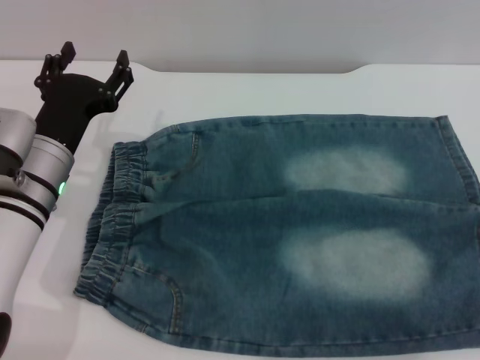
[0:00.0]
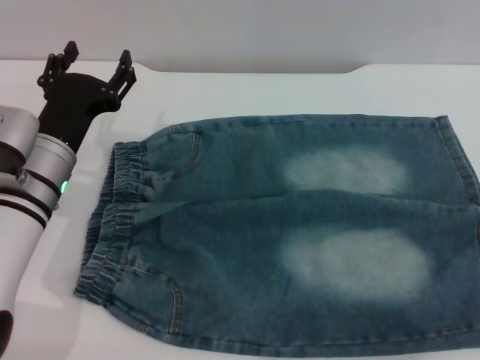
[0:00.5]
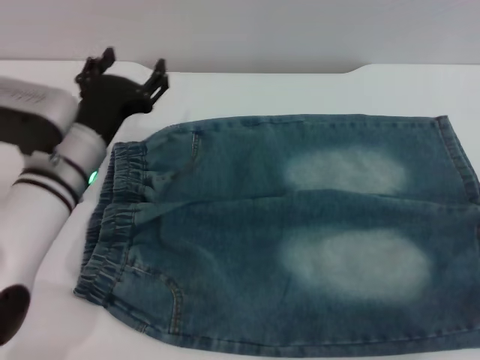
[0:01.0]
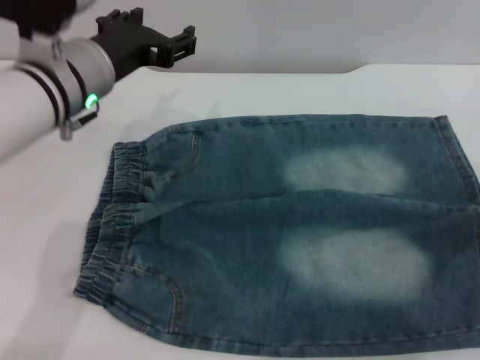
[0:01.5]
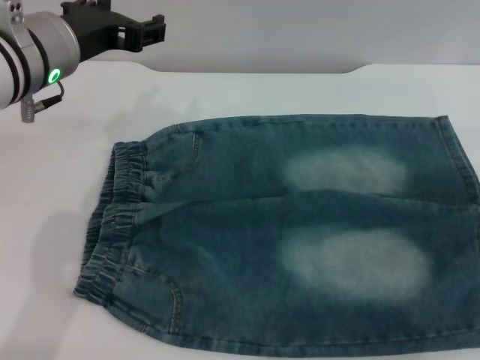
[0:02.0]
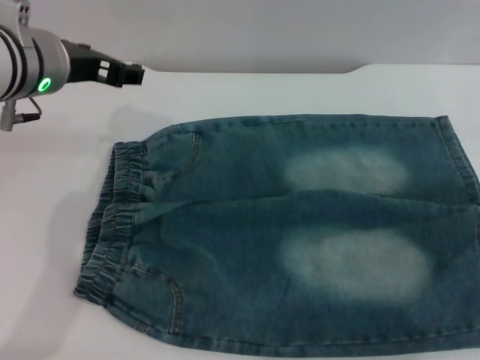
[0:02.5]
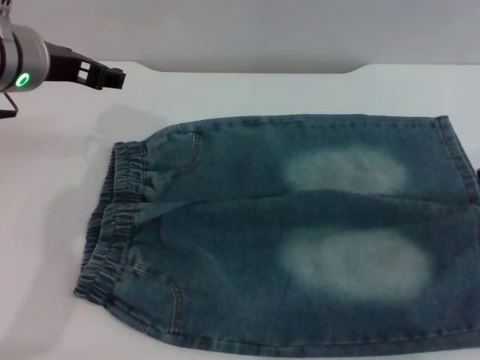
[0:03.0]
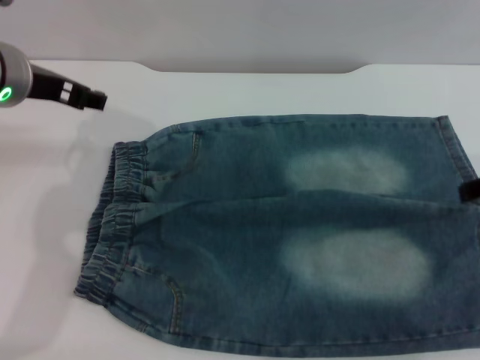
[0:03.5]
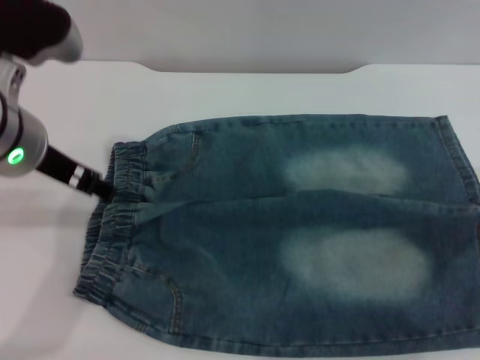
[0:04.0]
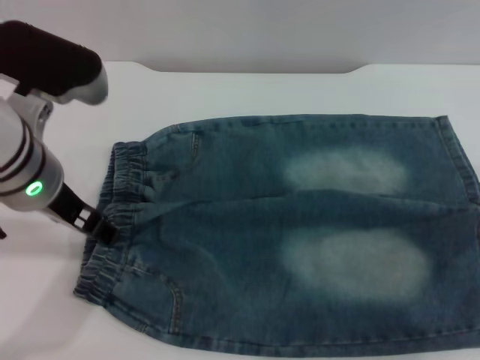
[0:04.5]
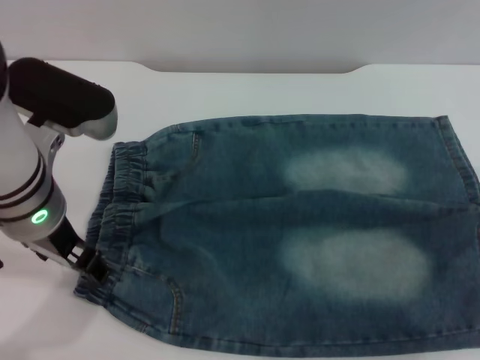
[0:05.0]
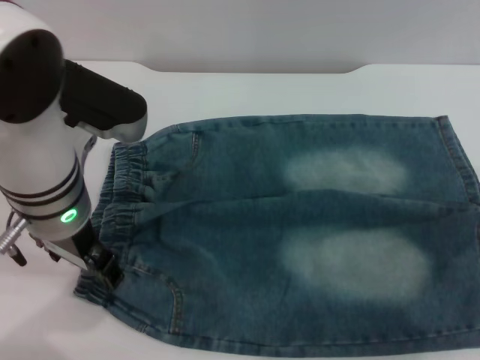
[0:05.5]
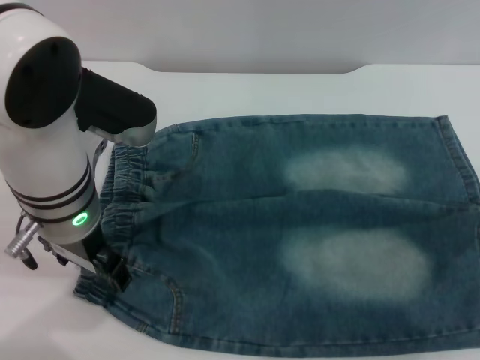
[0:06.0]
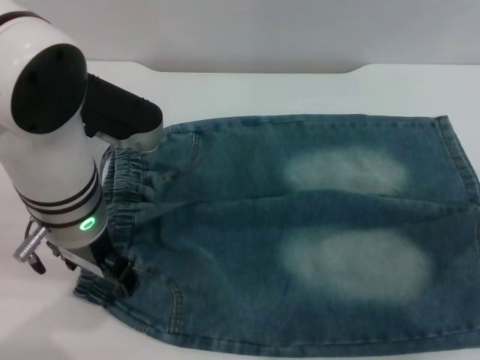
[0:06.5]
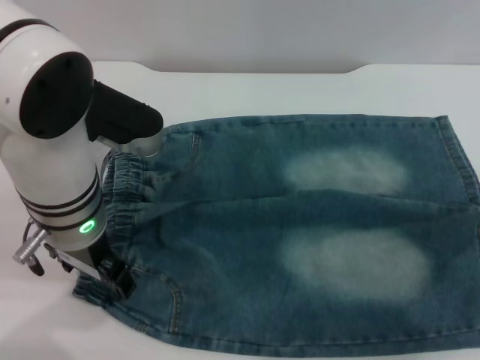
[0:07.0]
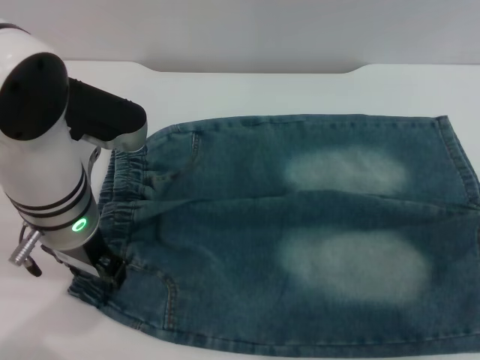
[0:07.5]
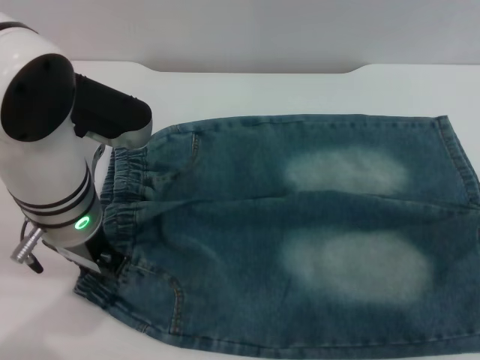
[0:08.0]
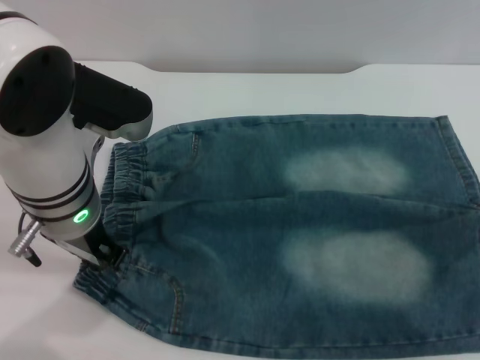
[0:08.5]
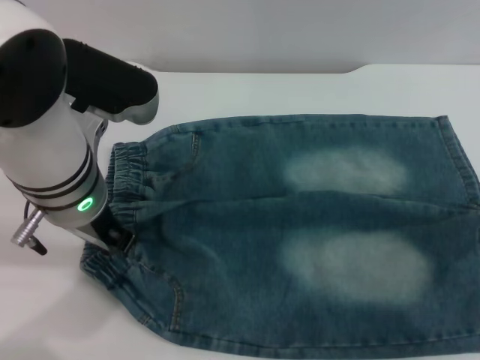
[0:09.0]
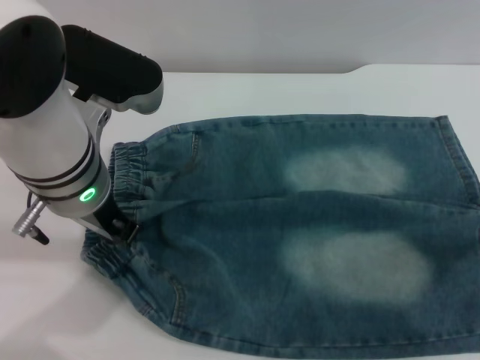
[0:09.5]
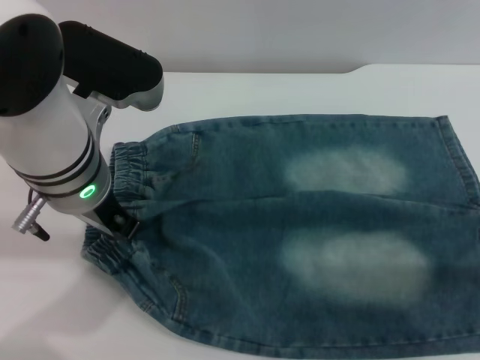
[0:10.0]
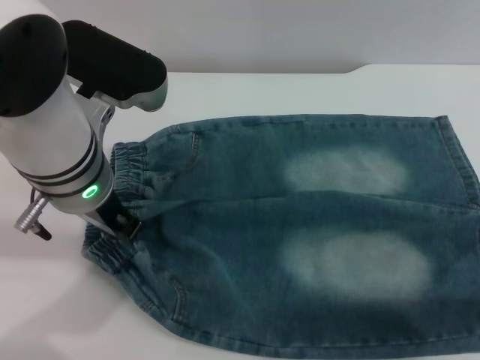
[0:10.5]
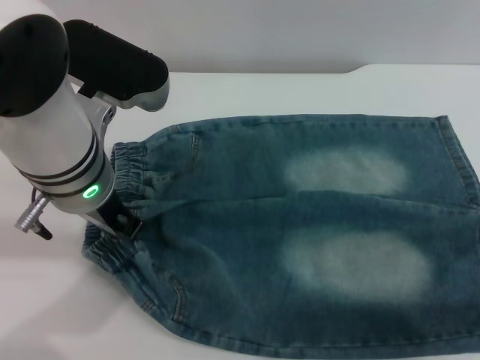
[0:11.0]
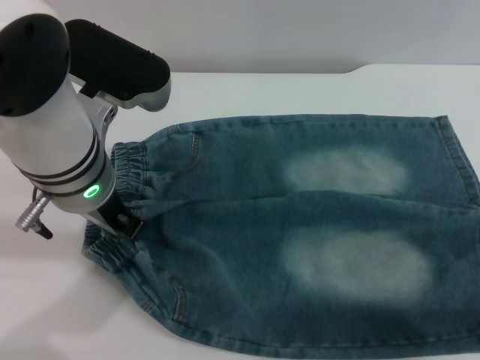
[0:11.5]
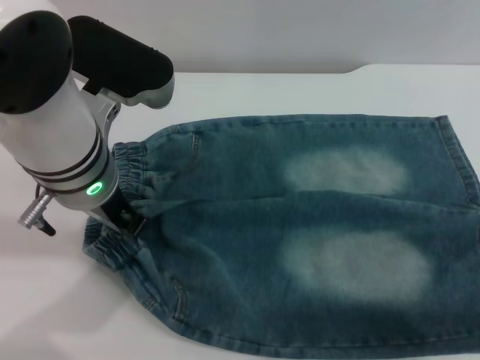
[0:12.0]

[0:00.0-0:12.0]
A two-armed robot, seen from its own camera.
0:00.0 to 0:02.0: The left gripper is displaced upward by approximately 15 cm.
0:04.0 to 0:06.0: The left gripper shifts approximately 5 cm to the right.
0:06.0 to 0:08.0: The left gripper closes up.
0:08.0 to 0:10.0: The grippers move only a little.

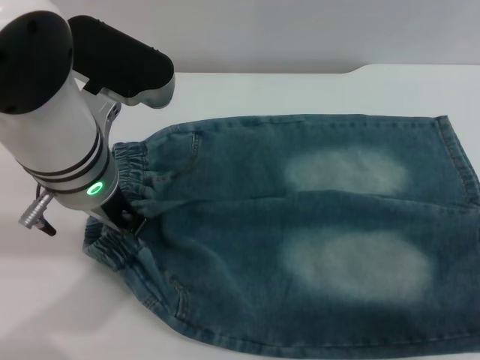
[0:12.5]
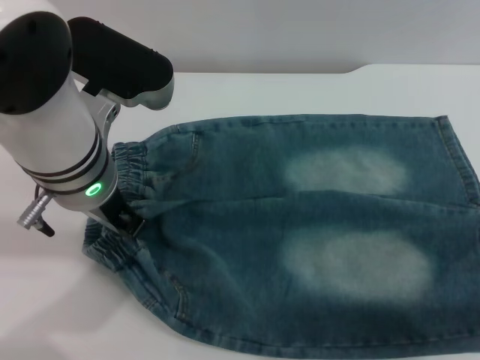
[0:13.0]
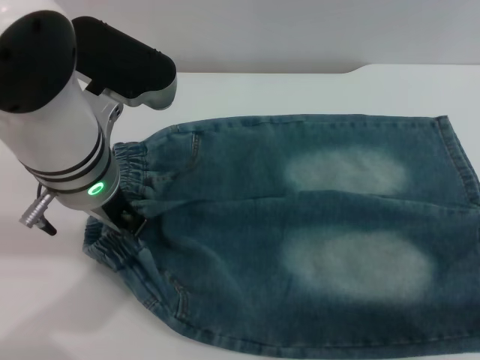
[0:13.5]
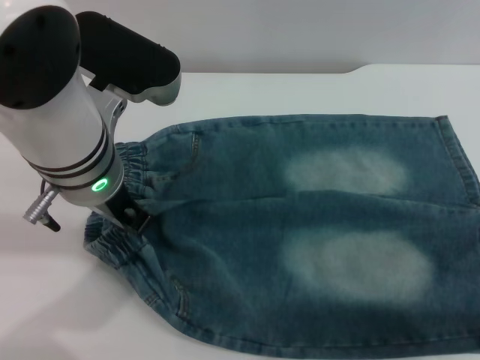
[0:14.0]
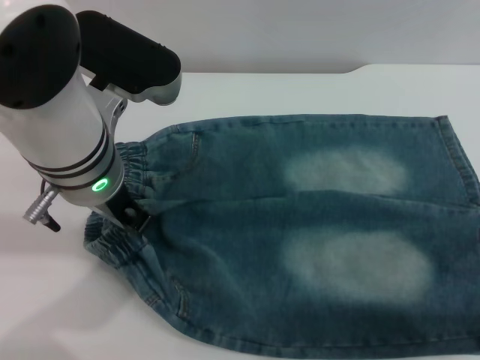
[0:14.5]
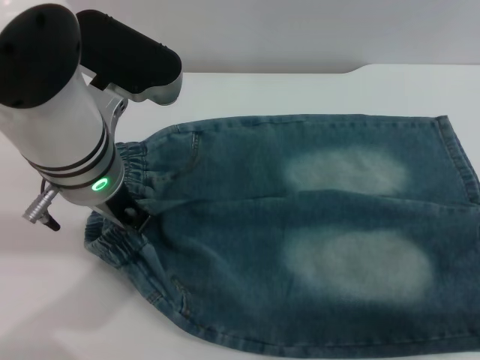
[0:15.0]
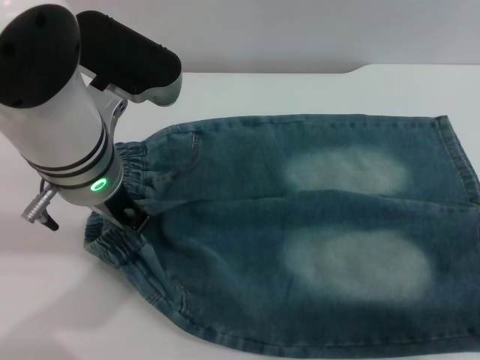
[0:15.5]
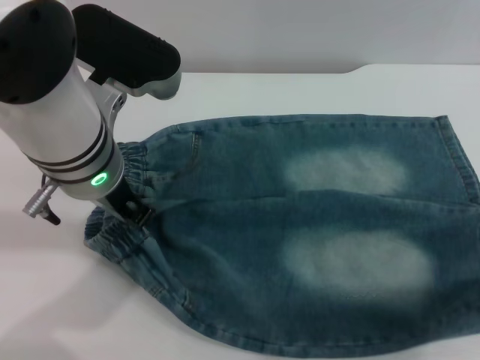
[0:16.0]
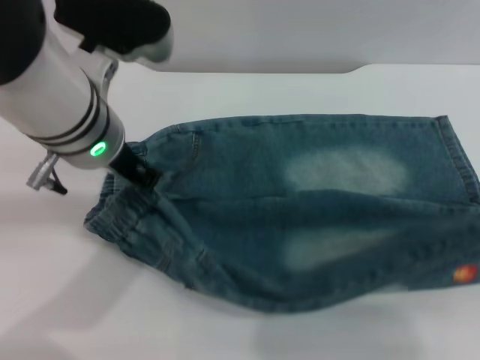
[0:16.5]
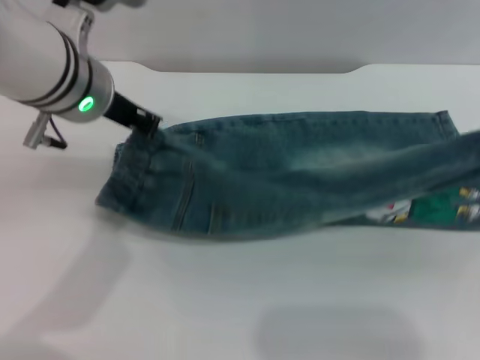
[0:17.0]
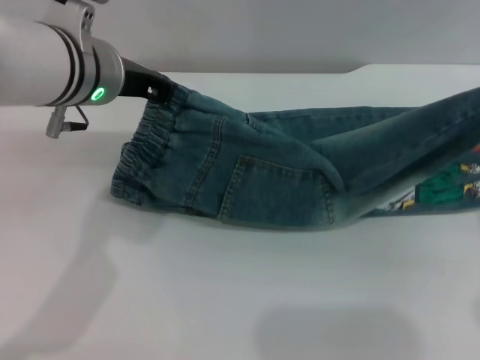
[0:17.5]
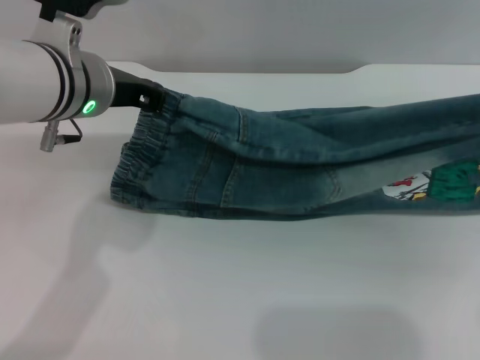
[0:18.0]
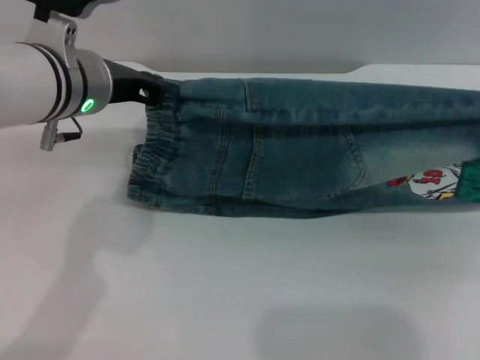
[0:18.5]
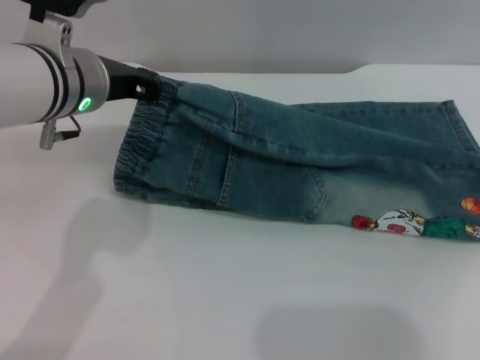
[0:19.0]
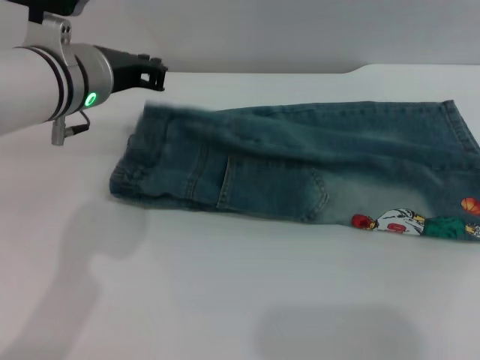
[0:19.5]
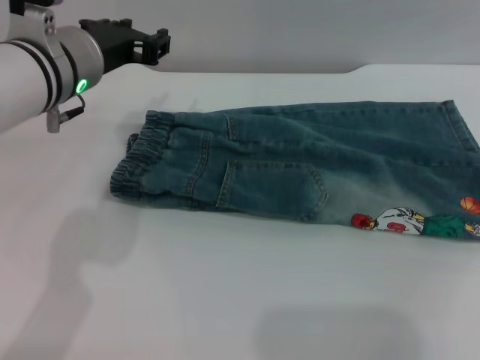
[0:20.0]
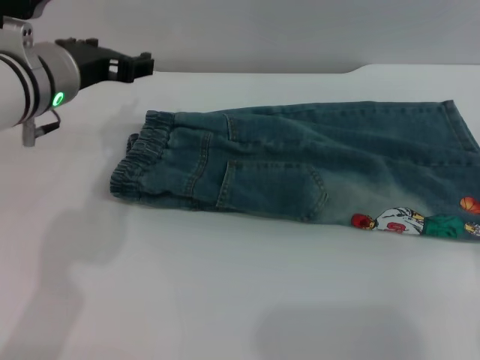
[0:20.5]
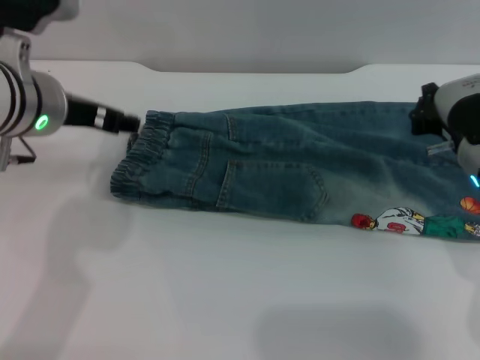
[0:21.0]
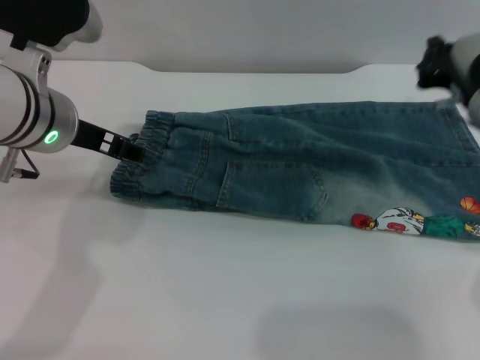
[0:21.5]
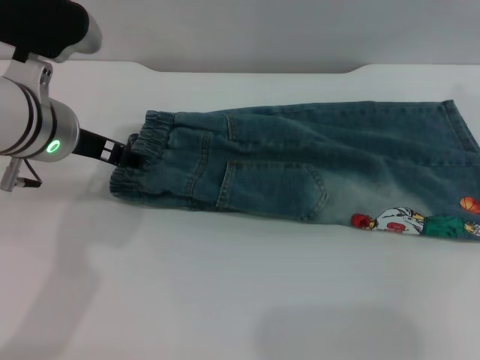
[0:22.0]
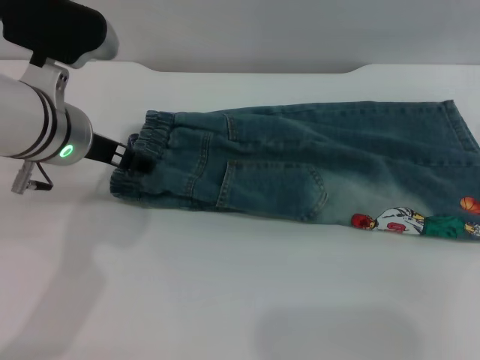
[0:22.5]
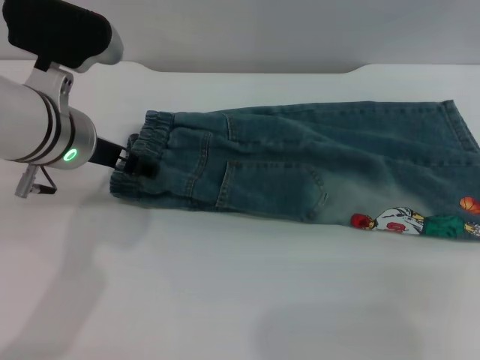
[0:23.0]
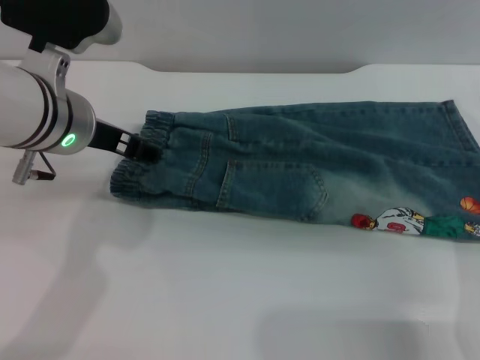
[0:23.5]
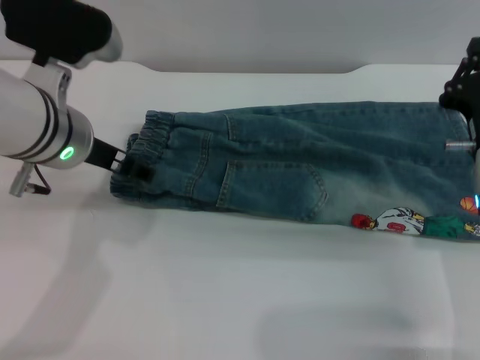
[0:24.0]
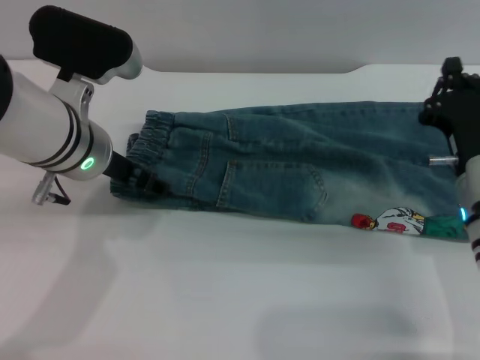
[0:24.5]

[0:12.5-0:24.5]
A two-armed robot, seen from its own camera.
Step, 0:12.5 to 0:19.5: Fold the bottom of the pants upward with both grippers.
0:14.5 to 0:16.5: The right gripper is displaced upward by some 5 cm, and closes up.
0:18.5 to 0:20.5: The right gripper changes place by approximately 5 cm, and opens. Meanwhile the left gripper opens.
0:22.5 to 0:24.5: The right gripper heads downward, to the left and backward, covering about 15 cm.

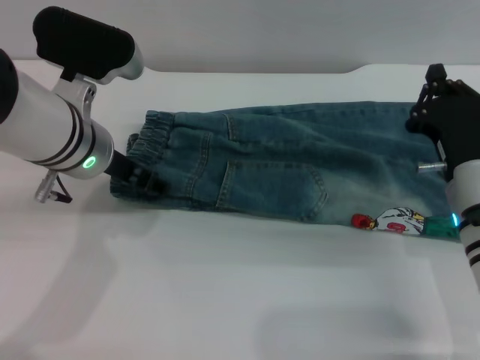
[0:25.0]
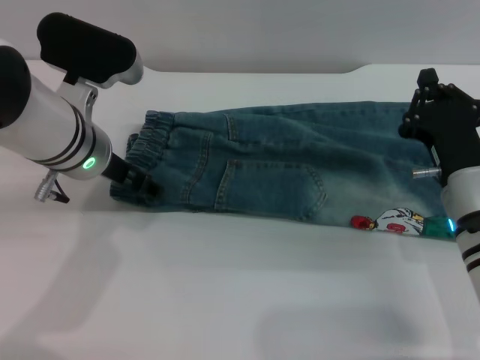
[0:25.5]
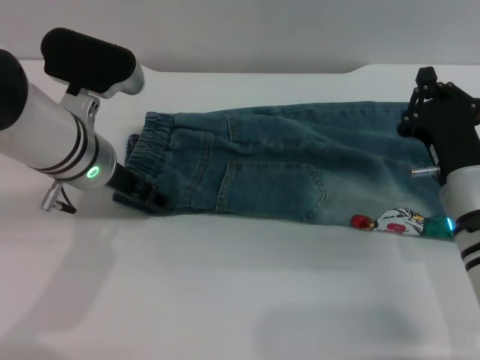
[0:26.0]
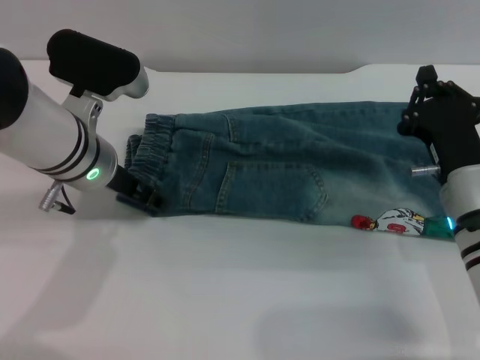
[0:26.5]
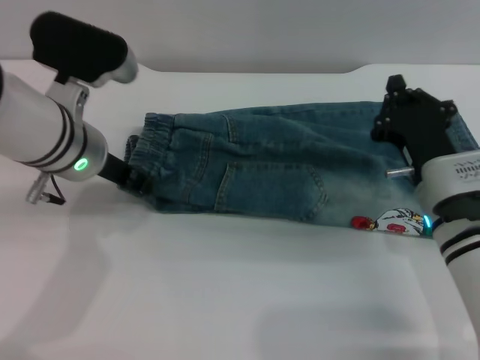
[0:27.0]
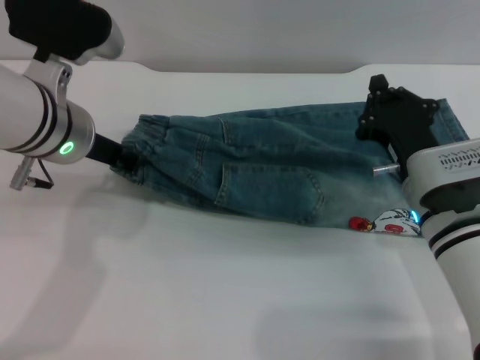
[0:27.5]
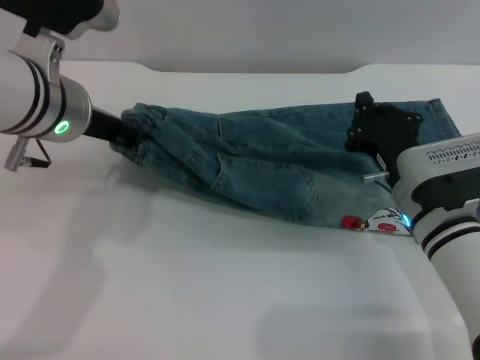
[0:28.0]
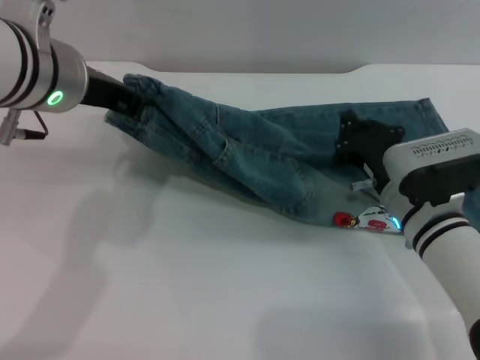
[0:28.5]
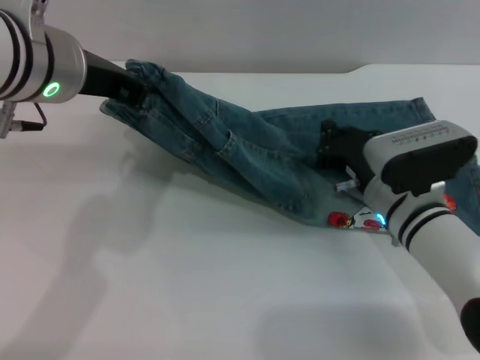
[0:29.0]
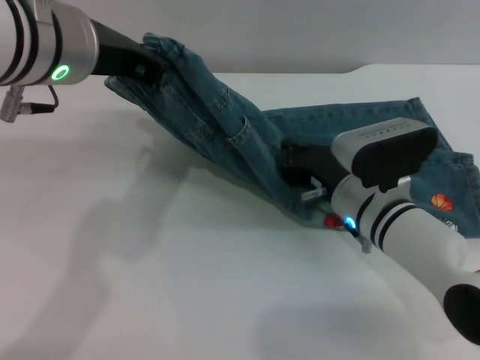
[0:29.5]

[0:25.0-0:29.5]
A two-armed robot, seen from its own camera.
0:25.0 to 0:27.0: The left gripper closes up.
0:27.0 to 0:29.5: The left gripper travels upward by roughly 10 cm, and closes up. The right gripper goes approximately 5 cm to the left.
